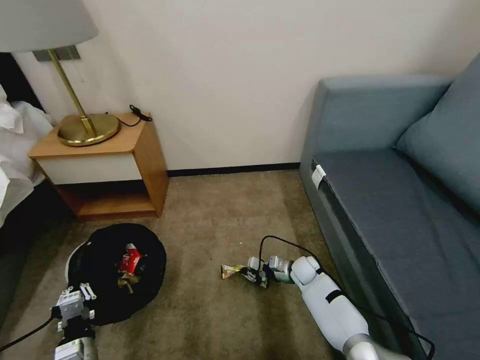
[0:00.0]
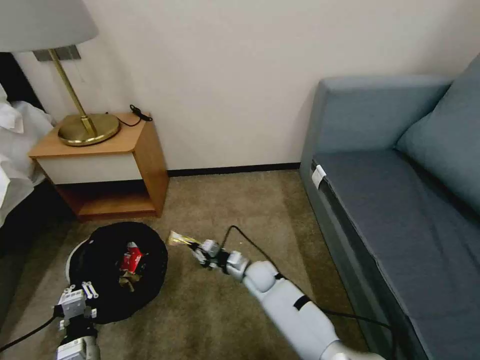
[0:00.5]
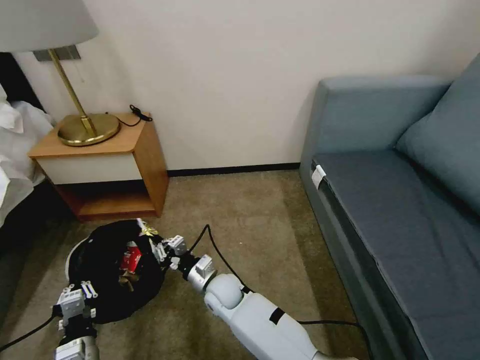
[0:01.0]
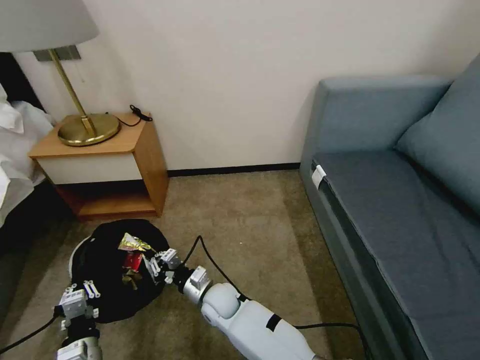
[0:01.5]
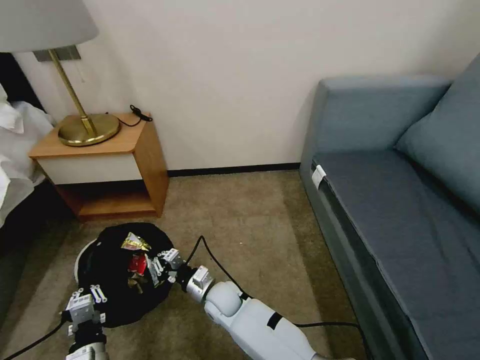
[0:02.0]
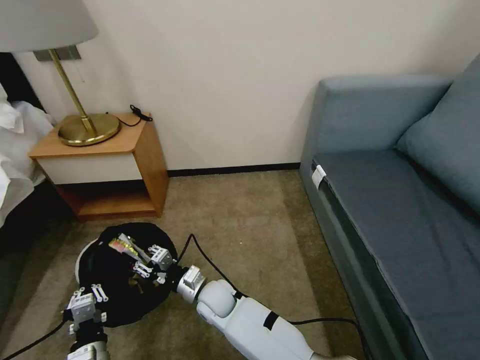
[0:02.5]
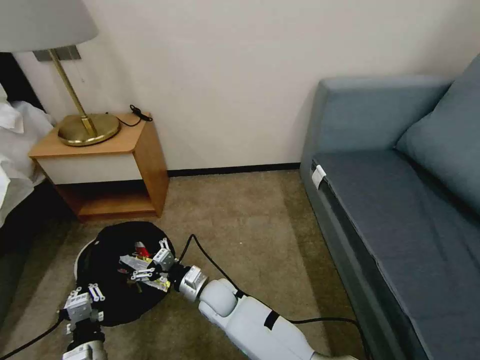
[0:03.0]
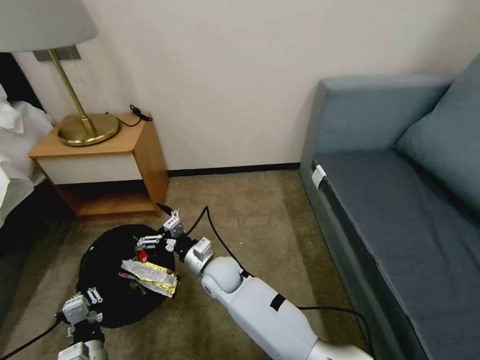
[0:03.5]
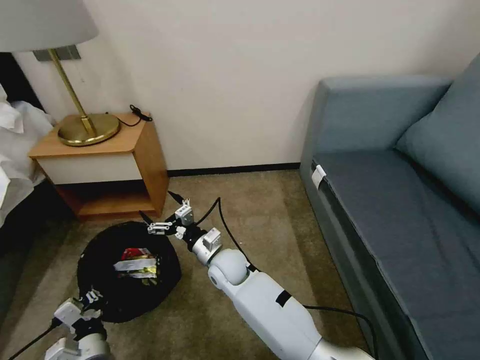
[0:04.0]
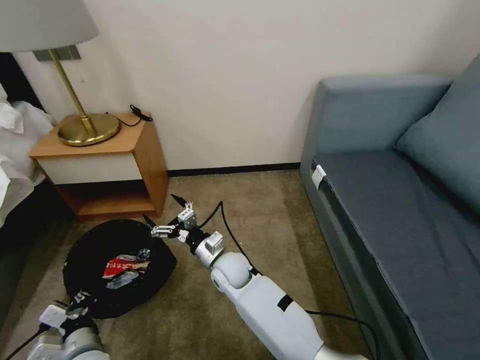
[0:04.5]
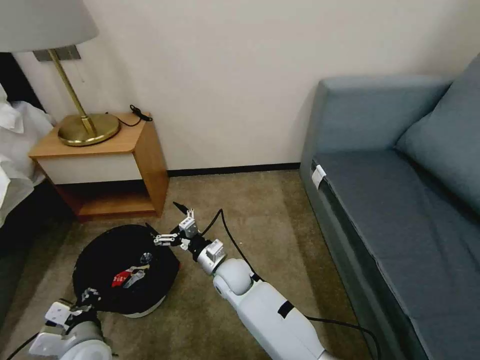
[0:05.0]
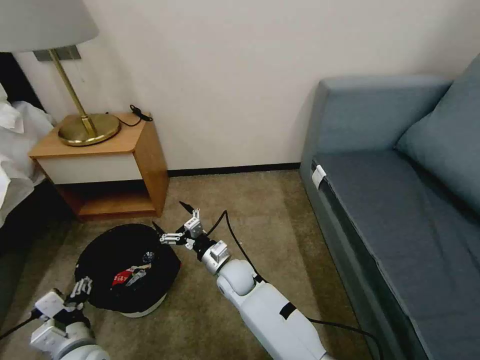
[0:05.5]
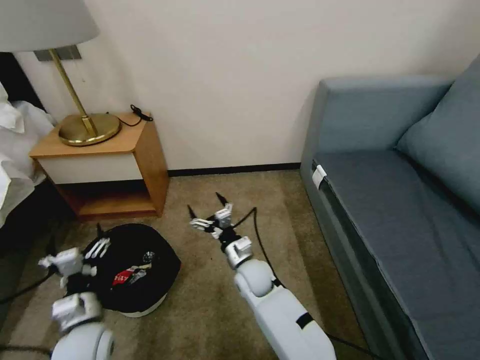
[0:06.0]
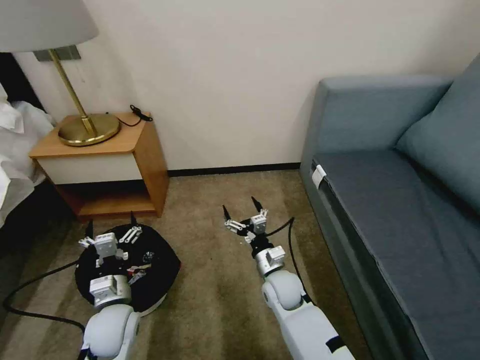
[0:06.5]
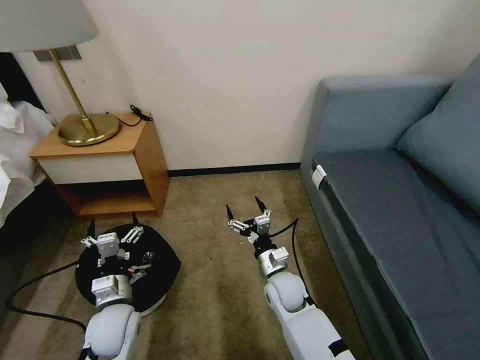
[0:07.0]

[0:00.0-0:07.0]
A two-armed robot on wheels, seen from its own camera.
Task of the whole recording: Pick up the trash bin, then pick up the garbage on the floor and place it into the trash bin.
0:00.0 to 0:02.0: The right gripper moves to the left and backward, approximately 30 cm.
0:02.0 to 0:03.5: The right gripper moves upward, roughly 5 cm, and opens up.
0:03.5 to 0:05.0: The left gripper goes roughly 5 cm upward.
0:05.0 to 0:07.0: The right gripper travels to the right by roughly 15 cm. The left gripper heads forward, covering about 5 cm, and opens.

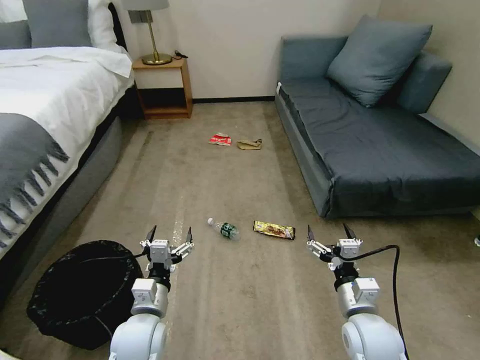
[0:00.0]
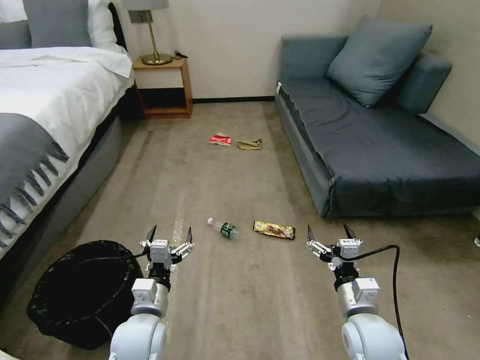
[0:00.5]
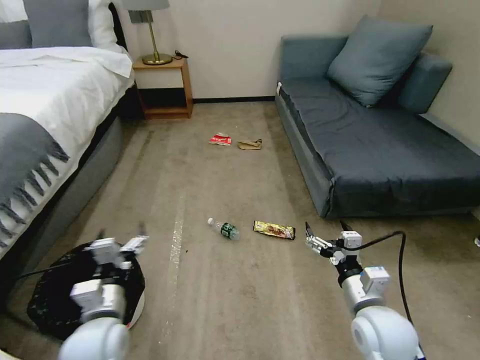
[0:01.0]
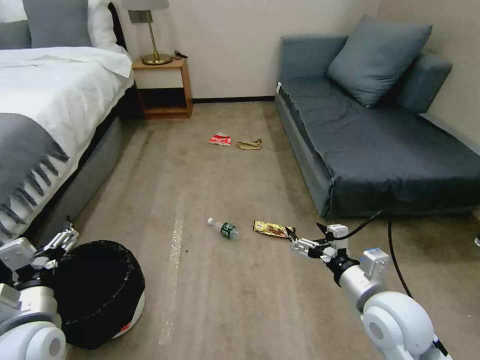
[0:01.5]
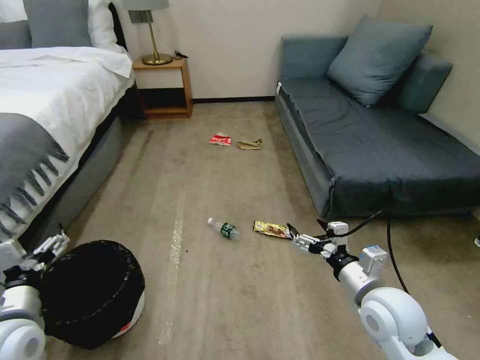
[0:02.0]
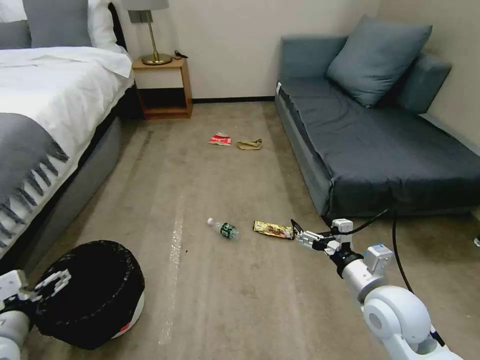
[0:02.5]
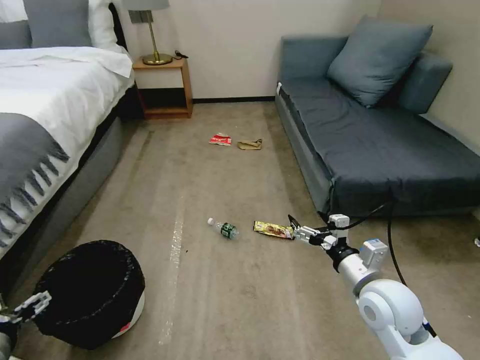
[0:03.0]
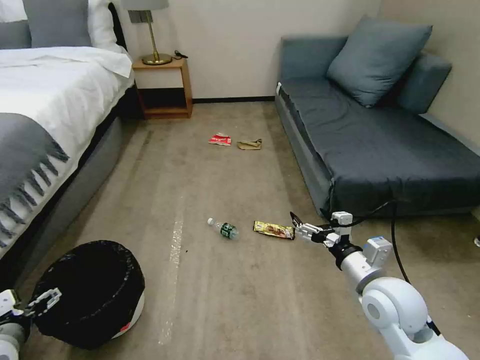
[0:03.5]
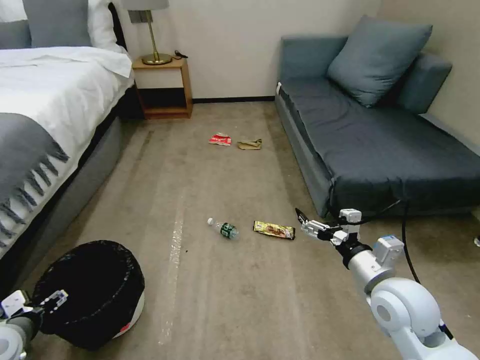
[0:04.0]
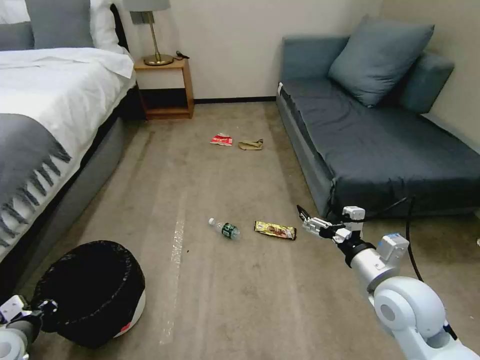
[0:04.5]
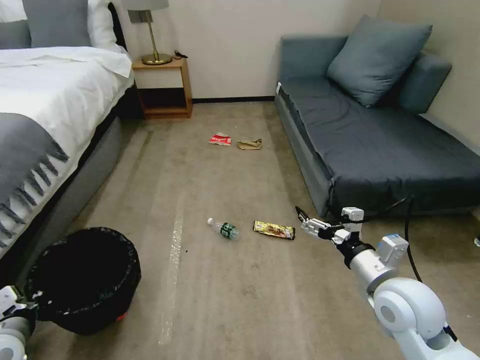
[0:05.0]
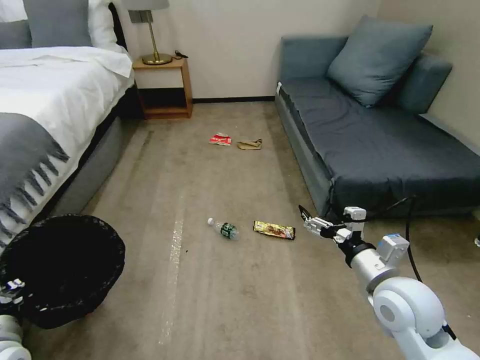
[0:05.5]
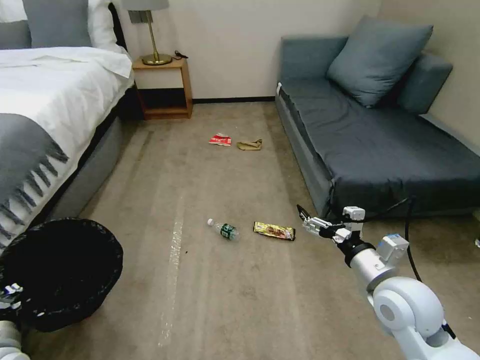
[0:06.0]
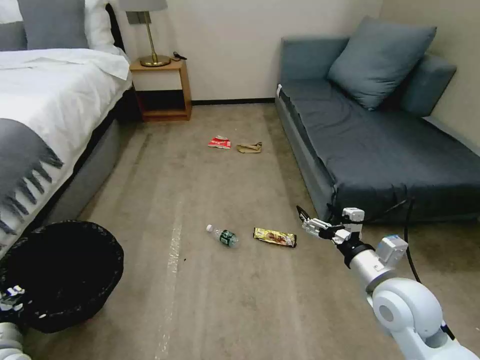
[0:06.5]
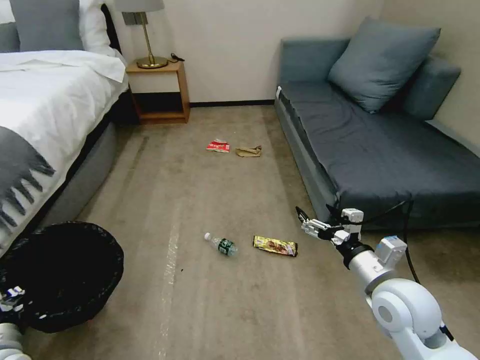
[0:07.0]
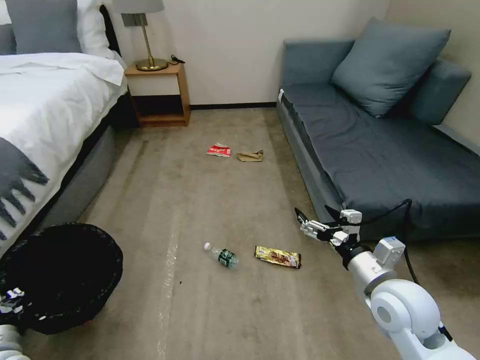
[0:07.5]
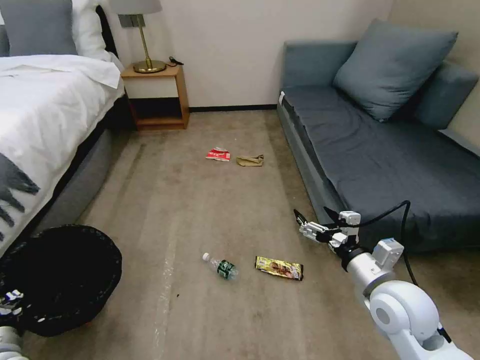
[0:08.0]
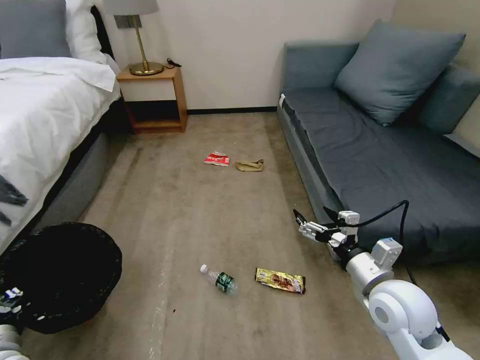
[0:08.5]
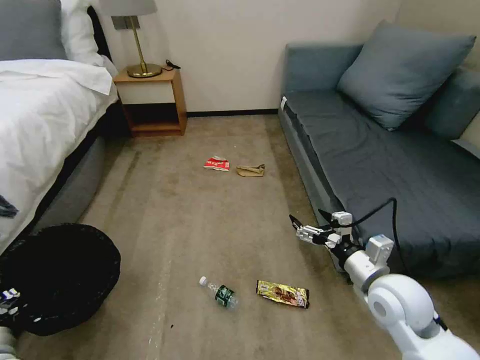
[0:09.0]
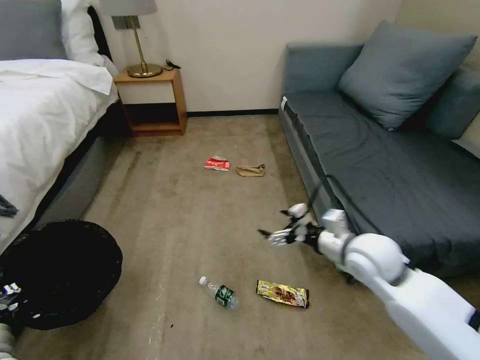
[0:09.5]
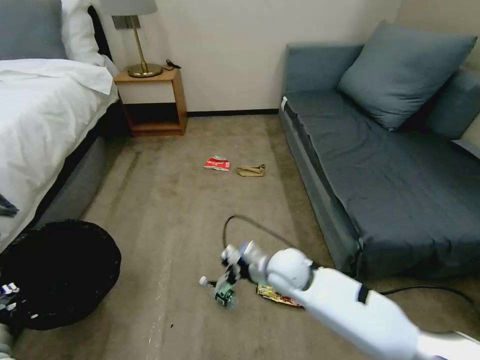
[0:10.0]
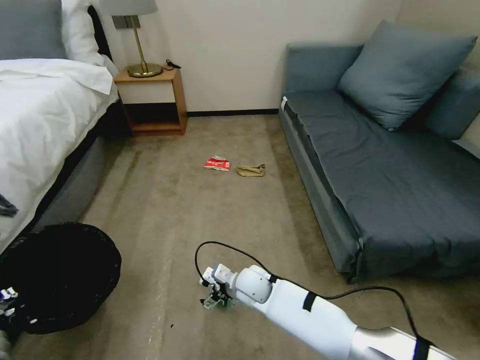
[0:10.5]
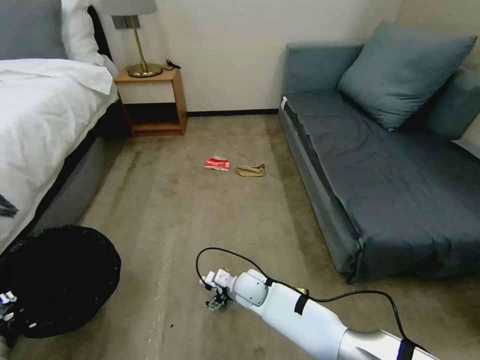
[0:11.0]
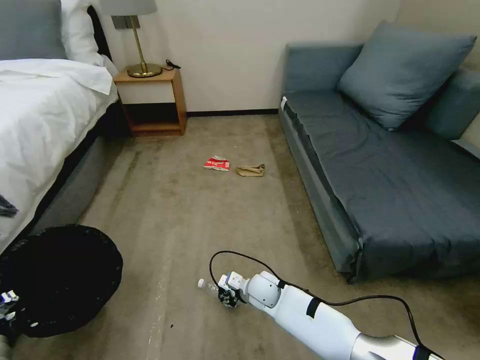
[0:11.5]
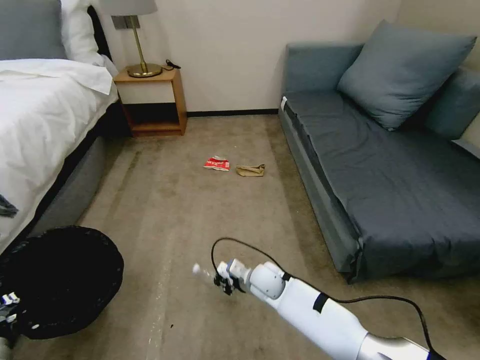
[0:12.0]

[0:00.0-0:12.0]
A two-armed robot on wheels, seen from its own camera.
Task of the whole recording: Pick up the trash bin, then pick up the garbage on the floor and place it into the trash bin.
0:02.0 to 0:04.0: The left gripper heads to the left and downward, covering roughly 10 cm.
0:04.0 to 0:06.0: The left gripper travels to the right by some 5 cm, and closes up.
0:08.0 to 0:10.0: The right gripper moves to the left, forward and downward, approximately 20 cm.
0:10.0 to 0:12.0: The right gripper heads downward, covering some 10 cm, and closes.

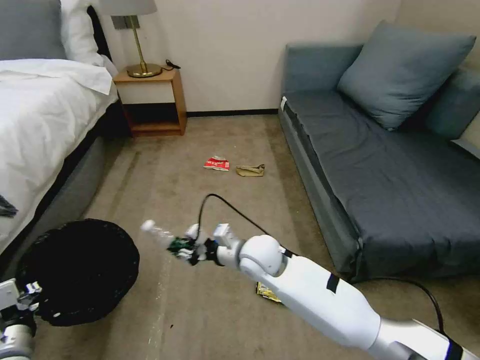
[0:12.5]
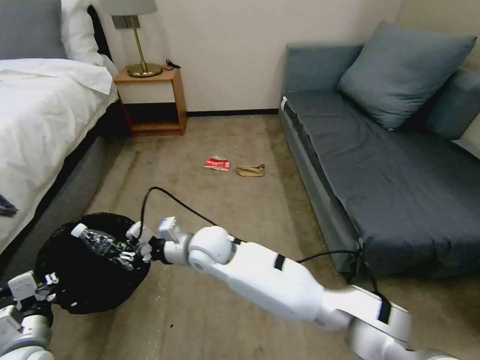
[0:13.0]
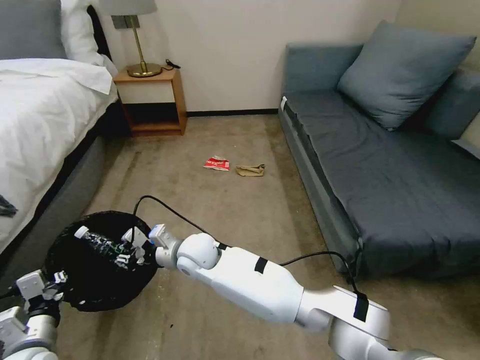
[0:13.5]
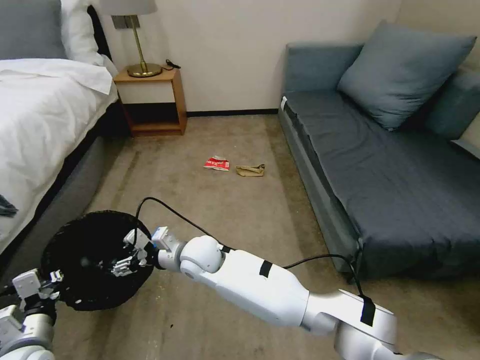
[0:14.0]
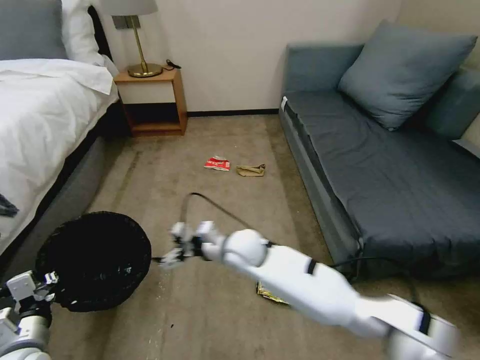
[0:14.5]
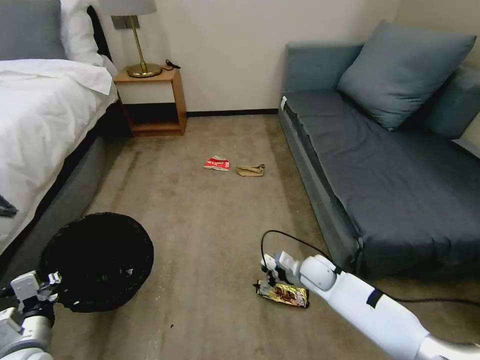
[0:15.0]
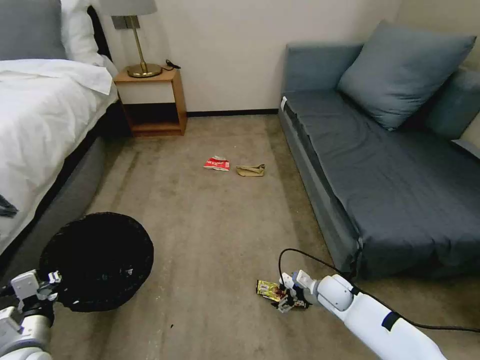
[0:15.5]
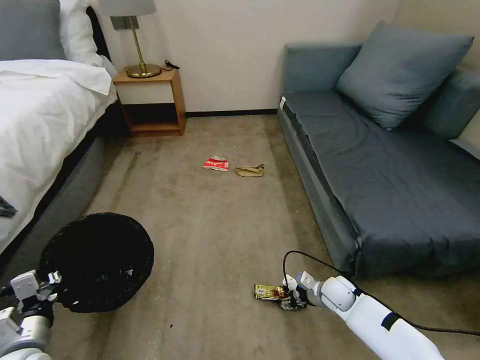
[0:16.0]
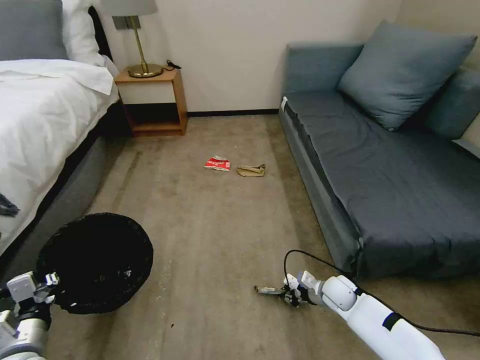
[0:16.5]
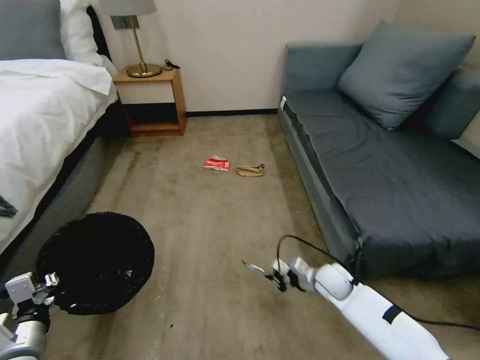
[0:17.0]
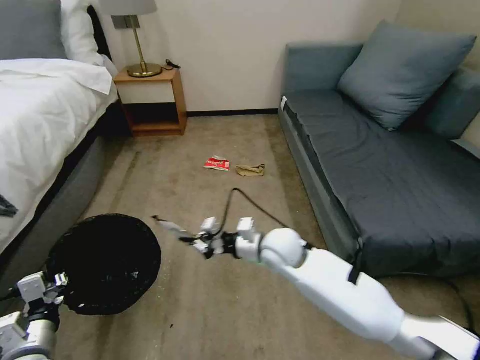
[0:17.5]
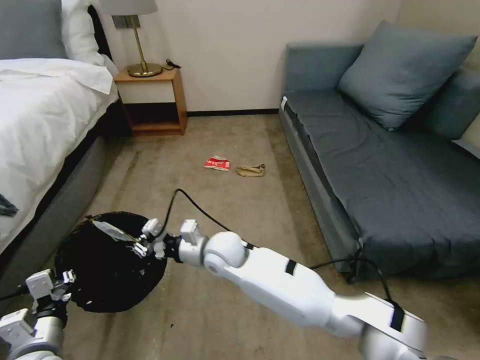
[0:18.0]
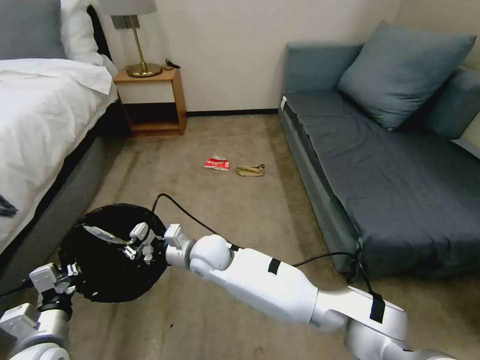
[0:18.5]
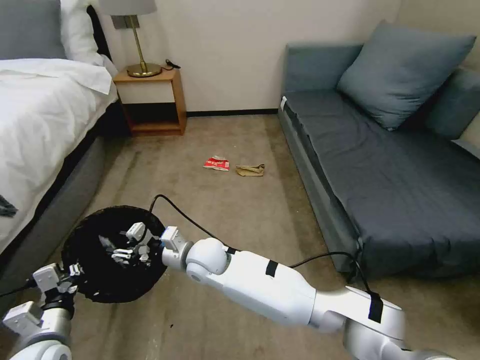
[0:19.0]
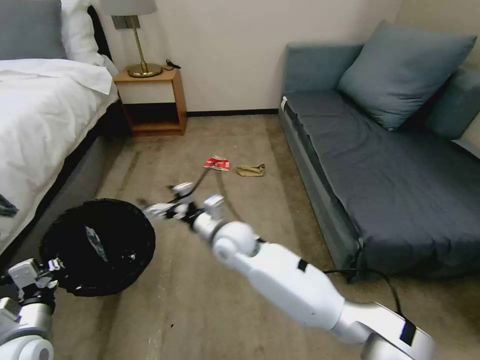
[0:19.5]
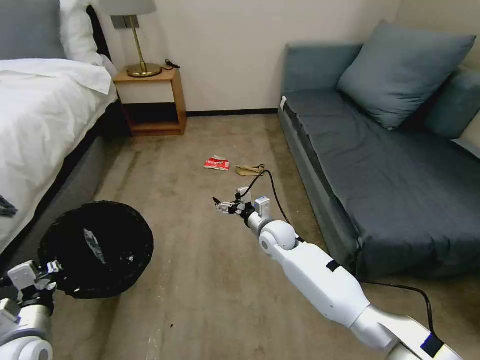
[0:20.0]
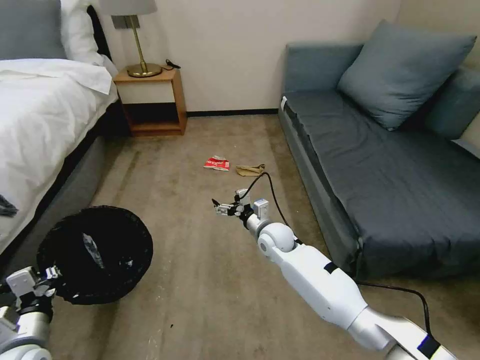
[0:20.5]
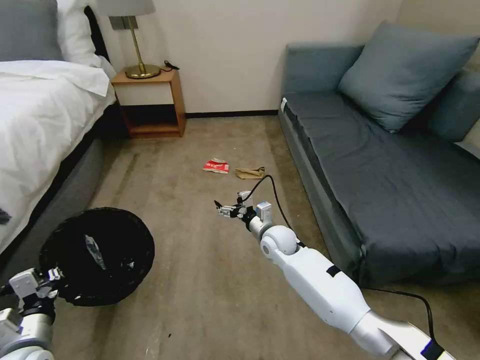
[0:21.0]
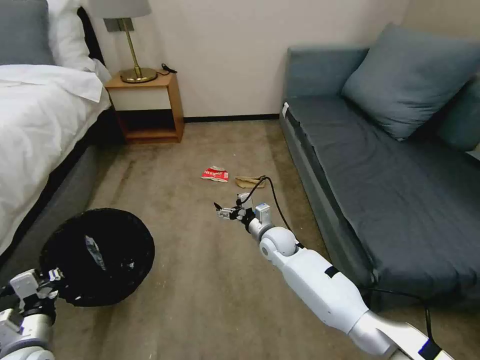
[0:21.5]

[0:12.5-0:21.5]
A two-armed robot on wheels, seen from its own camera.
Task of the whole recording: Pick up the trash bin, then pick up the garbage on the floor and place it into the trash bin.
0:12.5 to 0:14.5: The right gripper goes to the left and returns, roughly 15 cm each way, and opens.
0:14.5 to 0:17.0: The right gripper shifts approximately 25 cm to the right and downward, and closes up.
0:17.0 to 0:19.5: The right gripper moves to the left and upward, about 35 cm, and opens.
0:19.5 to 0:21.5: The right gripper heads to the right, downward and forward, covering about 15 cm.
